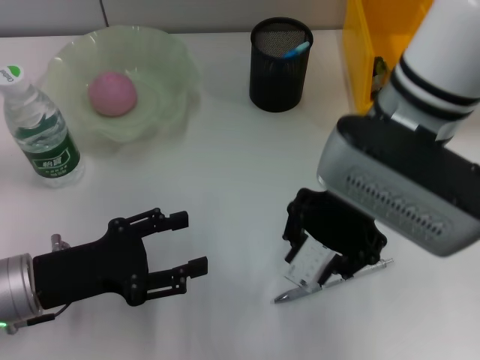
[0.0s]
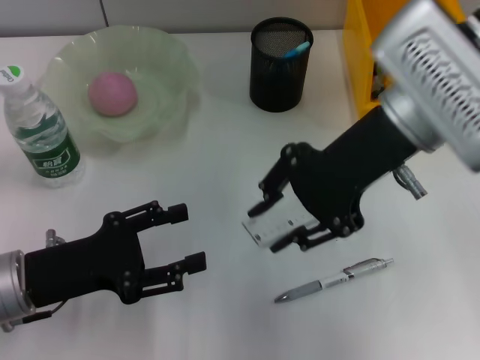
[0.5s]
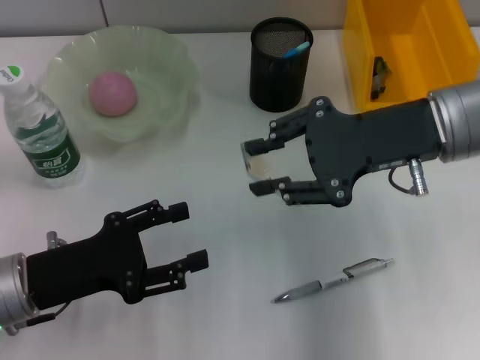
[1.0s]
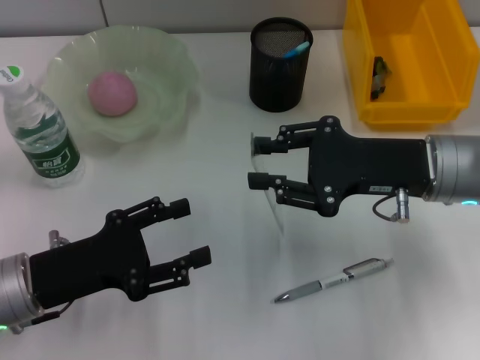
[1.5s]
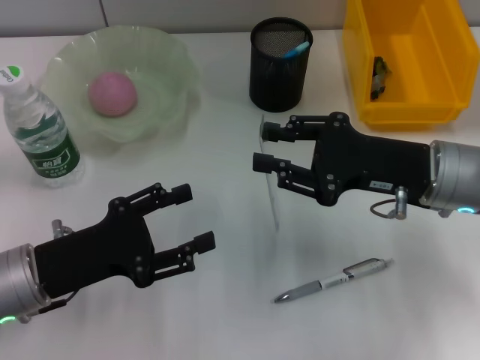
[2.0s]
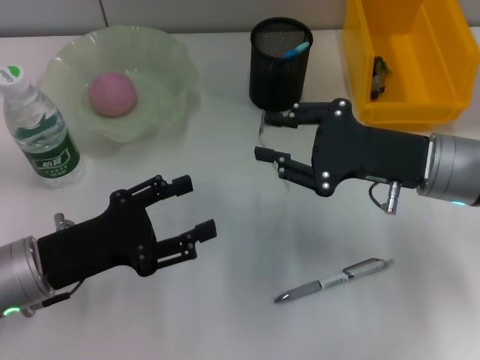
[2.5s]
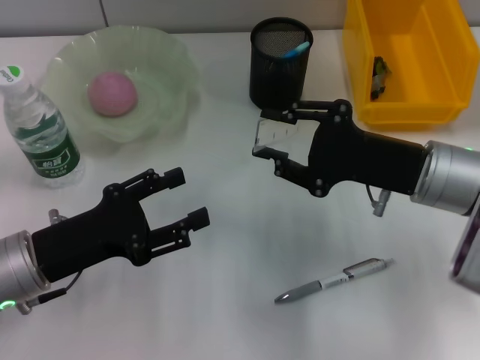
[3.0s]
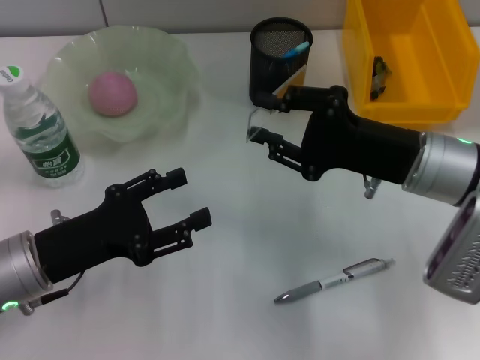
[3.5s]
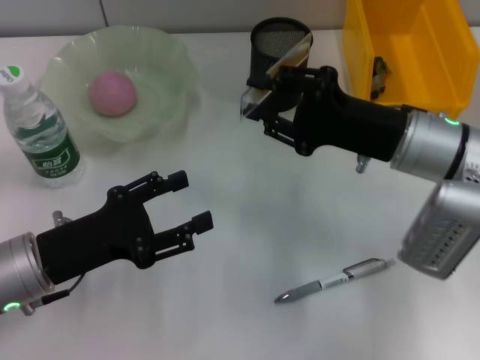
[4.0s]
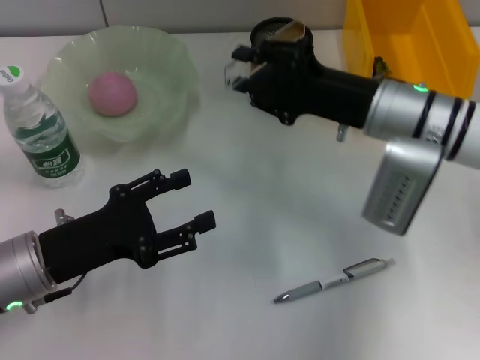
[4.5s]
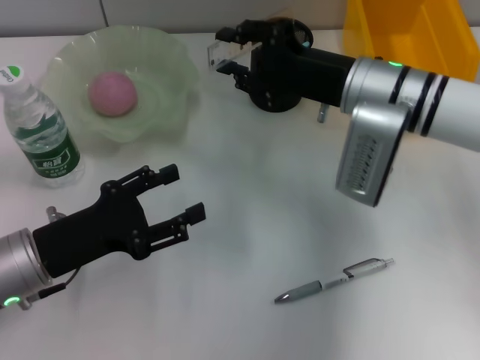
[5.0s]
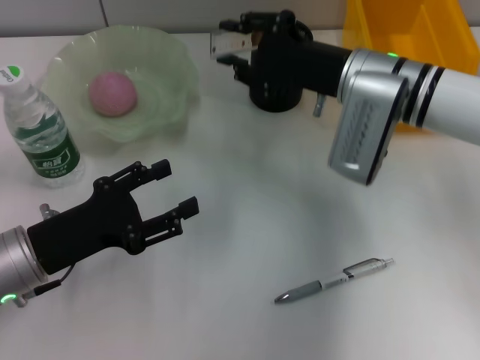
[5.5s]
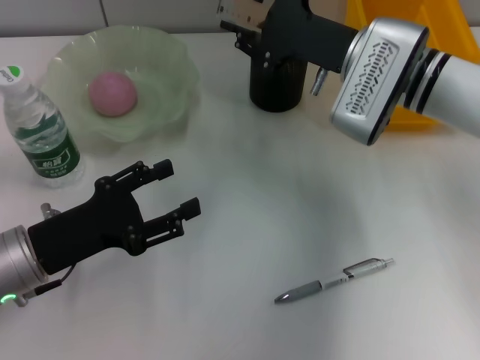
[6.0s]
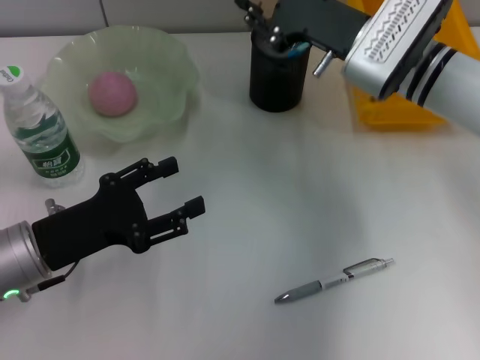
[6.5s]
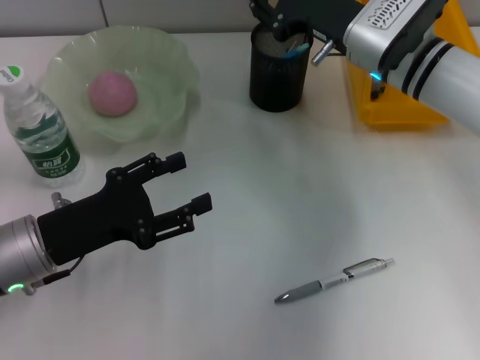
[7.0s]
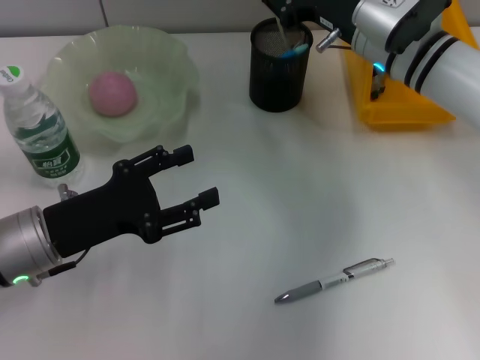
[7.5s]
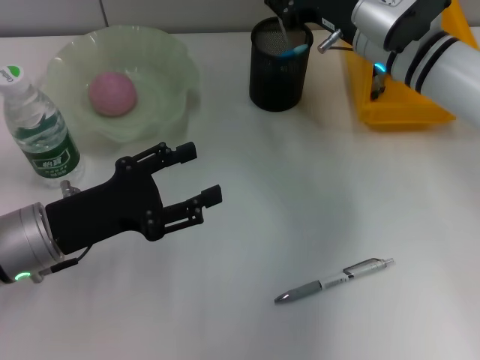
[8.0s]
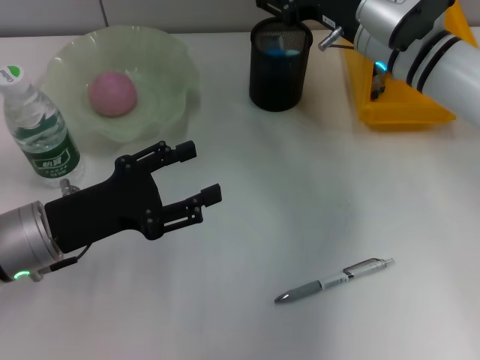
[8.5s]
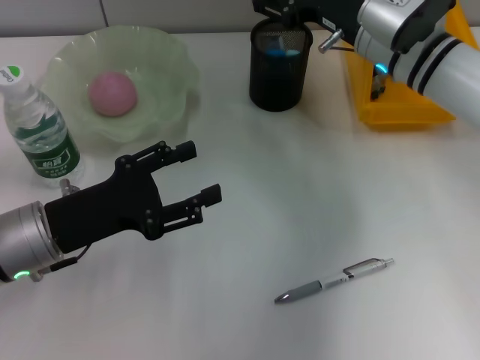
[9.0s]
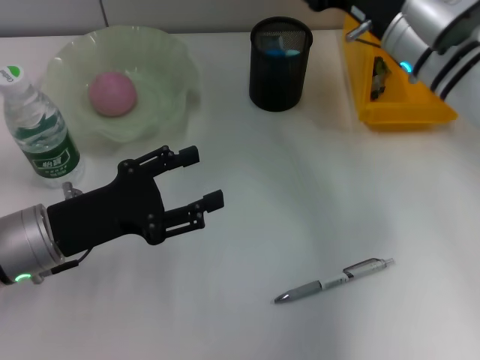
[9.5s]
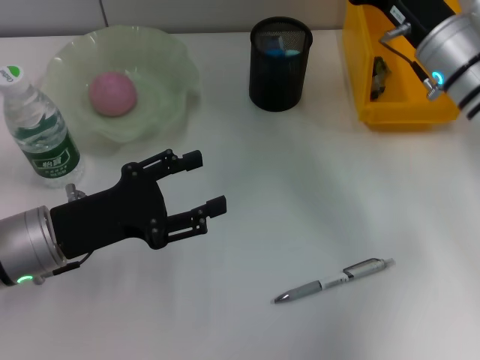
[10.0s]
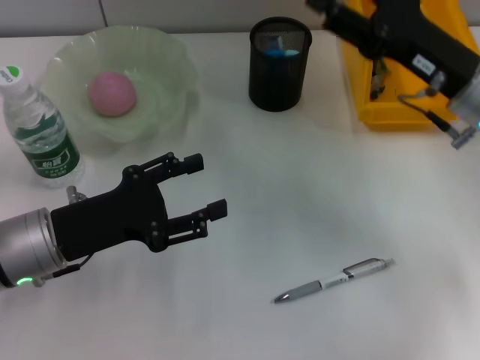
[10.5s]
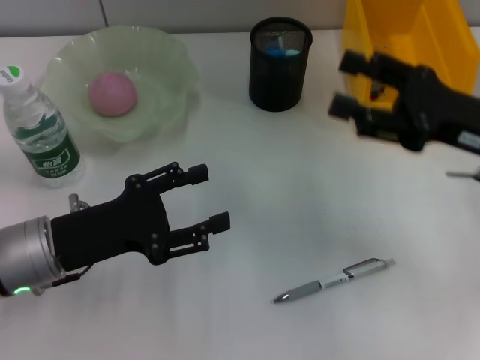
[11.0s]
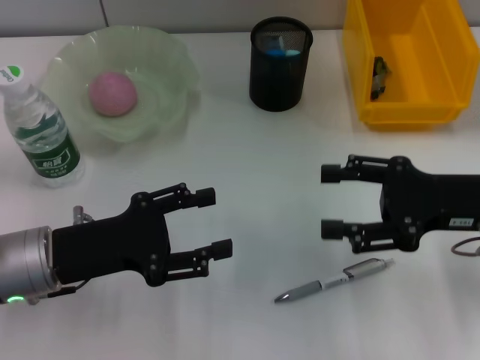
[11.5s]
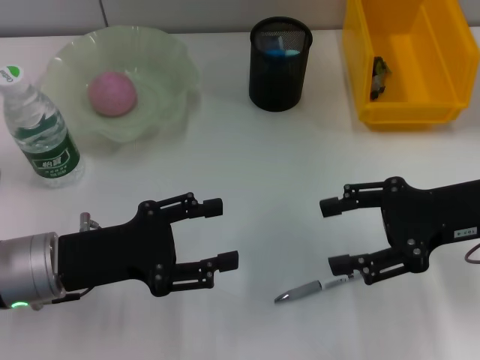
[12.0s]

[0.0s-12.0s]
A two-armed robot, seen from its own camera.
Step, 0.0s to 9.5s: Place the ruler into the pen holder with the right hand.
0.0s to 2.0s: The right gripper is displaced downward and to the right by about 15 cm.
4.0s to 6.0s: The right gripper shifts approximately 5 cm forward.
8.0s to 10.0s: The right gripper moves about 5 cm, and opens up.
10.0s to 12.0s: The right gripper heads backward and to the right, covering roughly 10 cm.

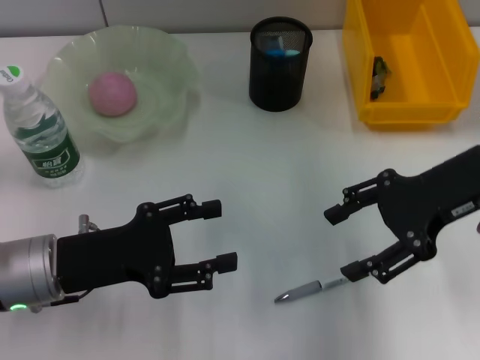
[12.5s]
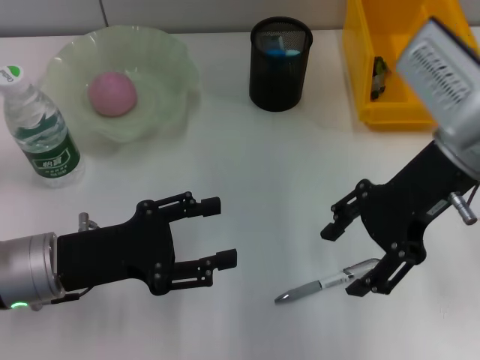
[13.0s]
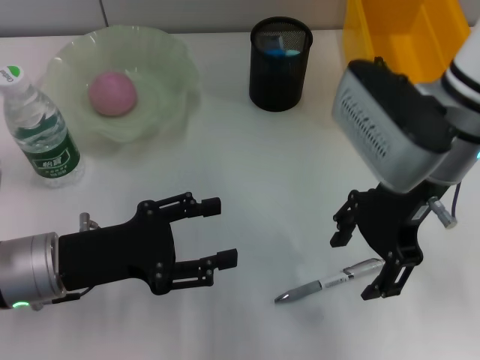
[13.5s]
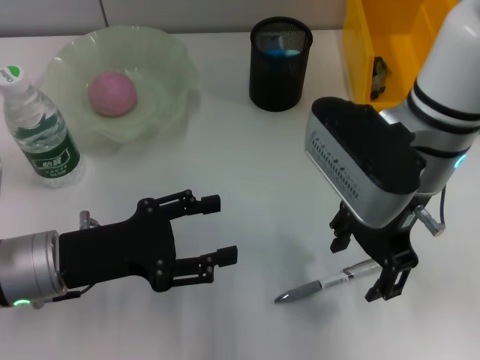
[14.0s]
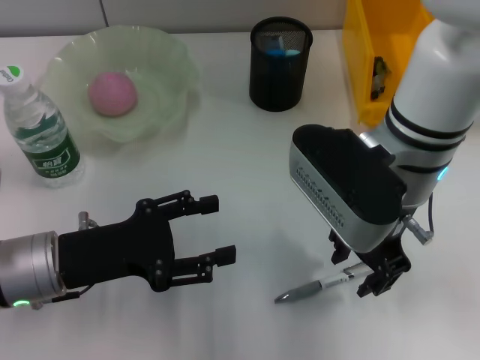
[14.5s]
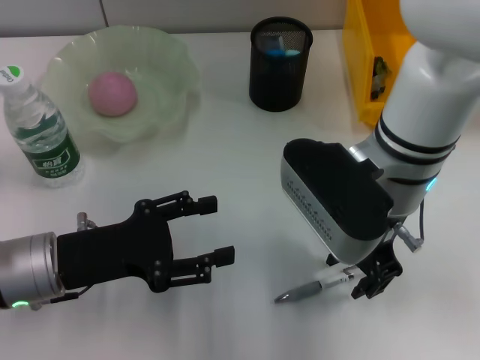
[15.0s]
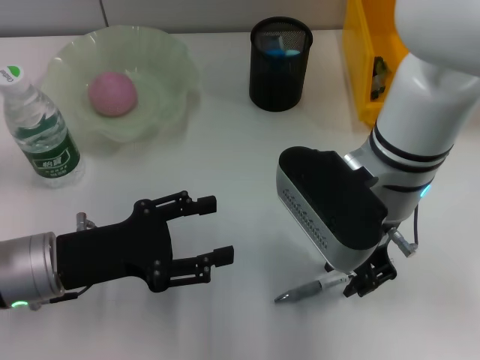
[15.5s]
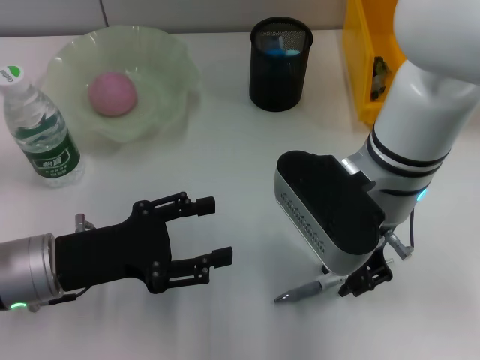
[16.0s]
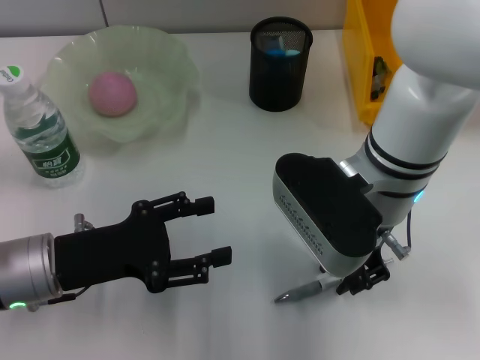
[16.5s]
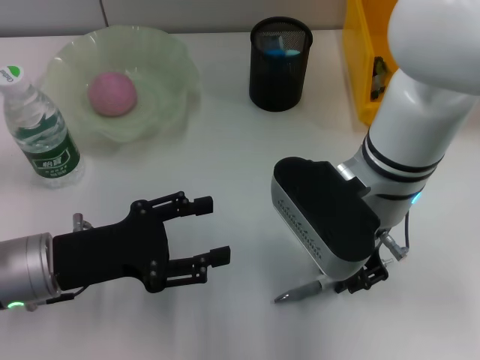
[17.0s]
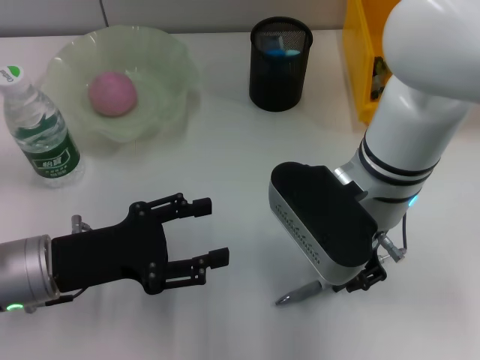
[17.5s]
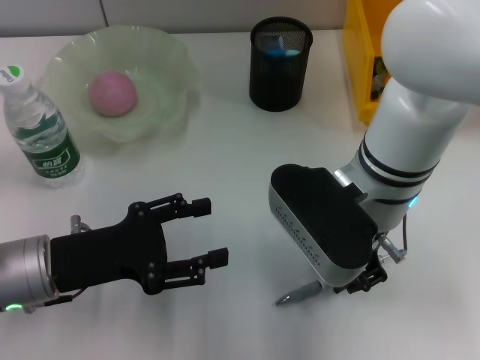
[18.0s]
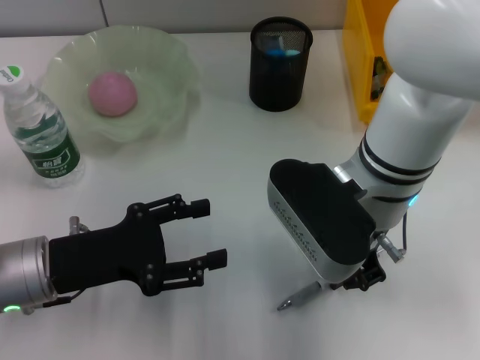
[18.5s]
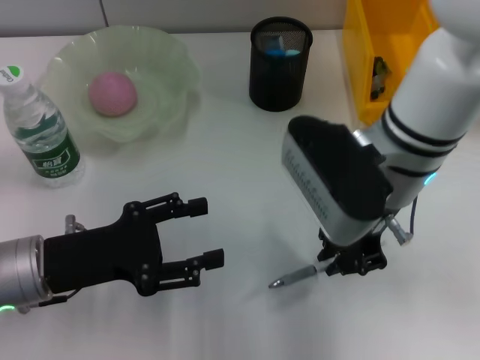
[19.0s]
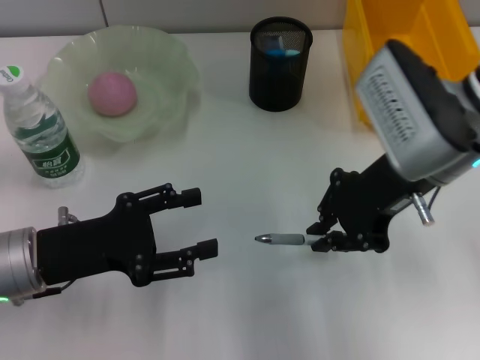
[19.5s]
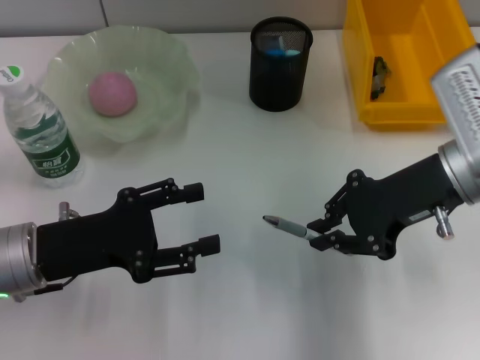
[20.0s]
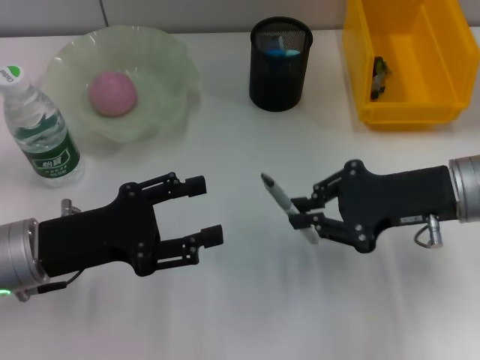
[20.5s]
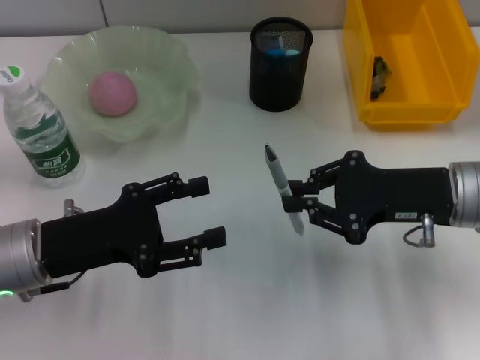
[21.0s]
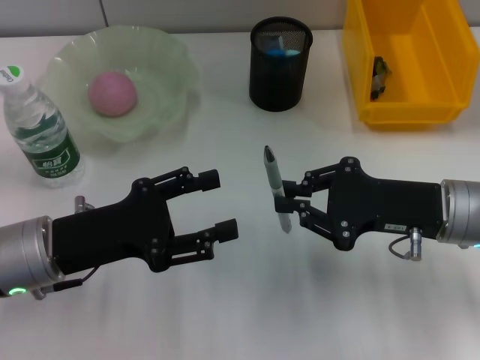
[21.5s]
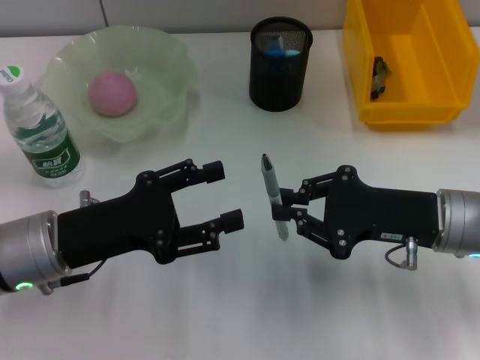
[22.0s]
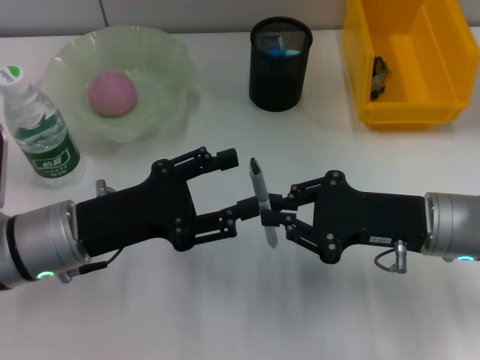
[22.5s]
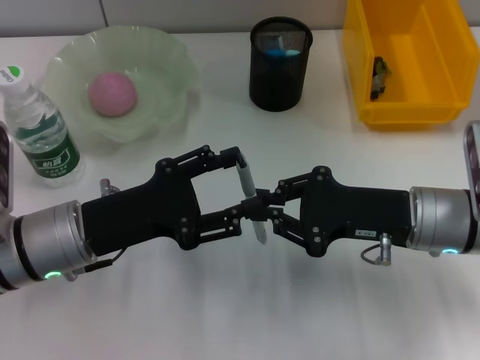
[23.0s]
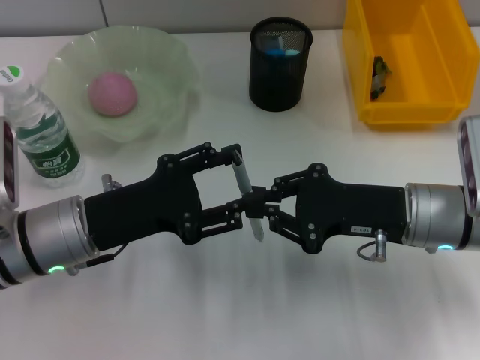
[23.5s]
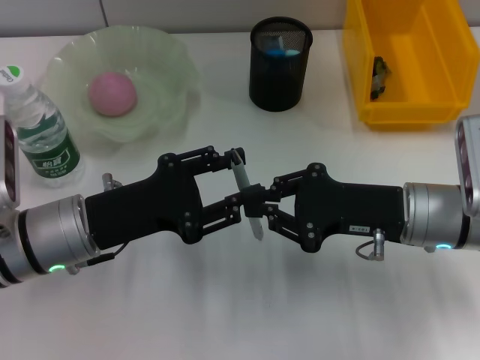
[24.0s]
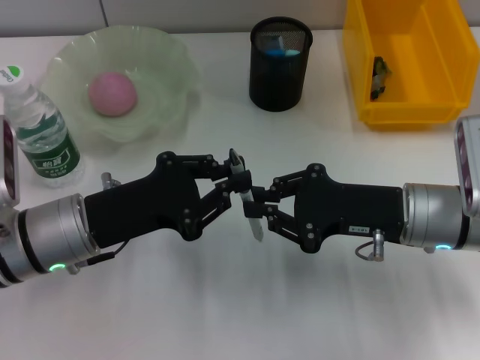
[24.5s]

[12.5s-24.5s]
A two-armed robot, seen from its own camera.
Step, 12.5s to 18.0s: Grab the gray spring-action pen with the right hand.
12.5s to 14.5s: The right gripper travels to the left by some 15 cm.
14.5s to 16.5s: The right gripper closes.
16.5s to 18.5s: Both grippers stay put.
18.5s to 20.5s: The right gripper heads to the right, covering about 15 cm.
20.5s to 22.5s: The right gripper moves roughly 5 cm.
22.5s to 24.5s: The left gripper closes up.

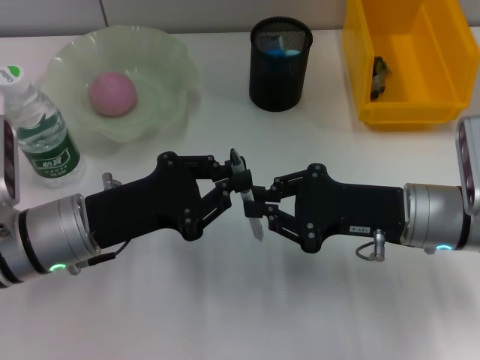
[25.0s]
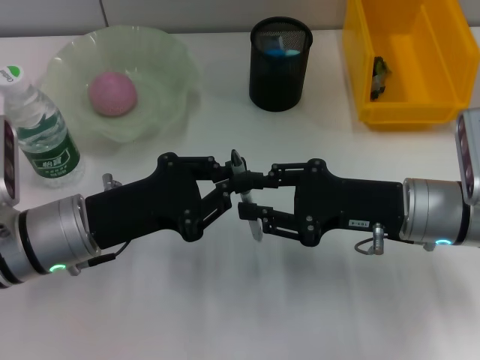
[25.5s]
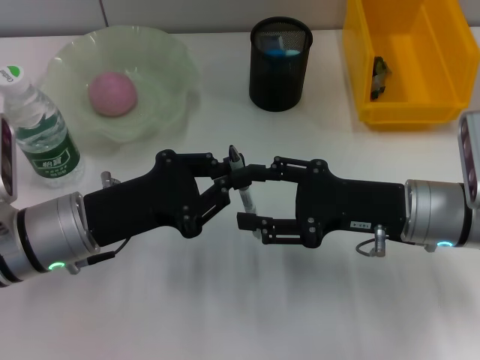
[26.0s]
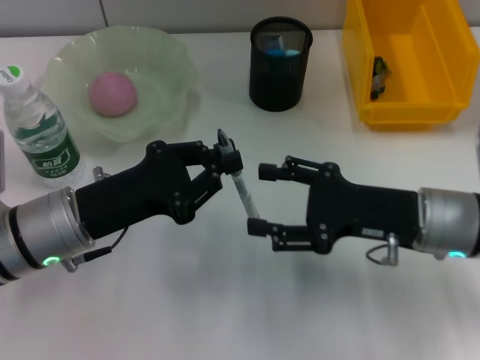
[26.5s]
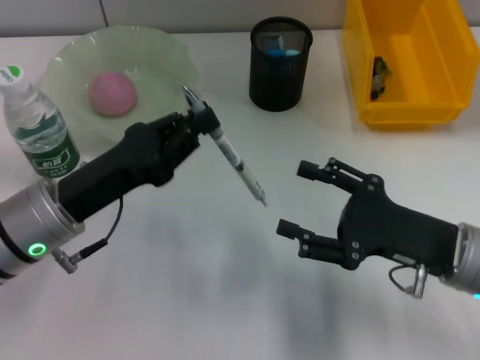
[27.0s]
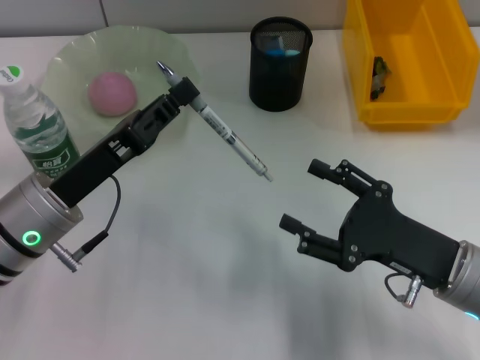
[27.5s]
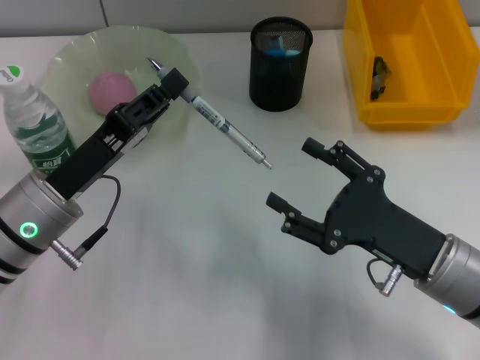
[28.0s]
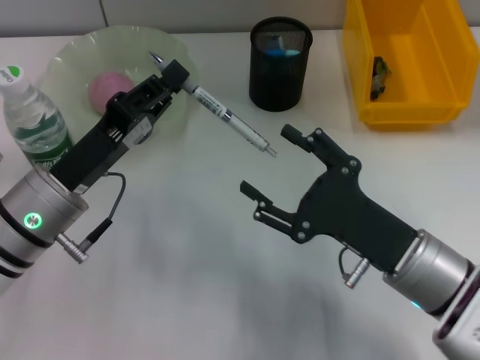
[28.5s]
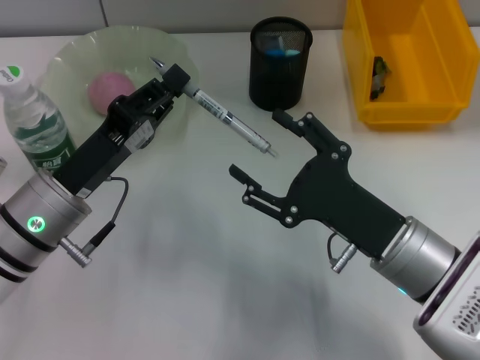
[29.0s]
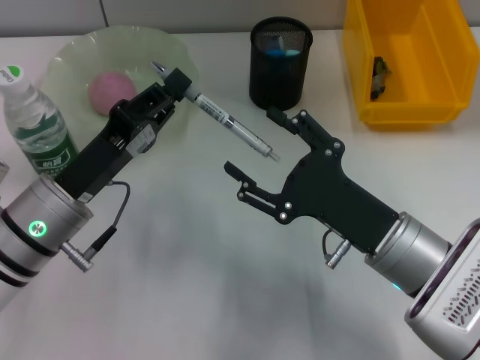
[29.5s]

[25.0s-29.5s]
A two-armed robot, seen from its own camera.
25.0s to 27.0s: The right gripper moves backward, some 5 cm, and opens up.
27.0s to 29.5s: The right gripper travels to the left by some 5 cm.
